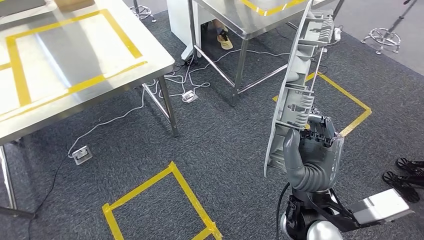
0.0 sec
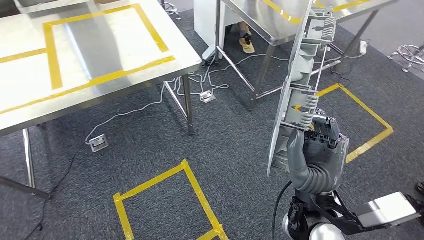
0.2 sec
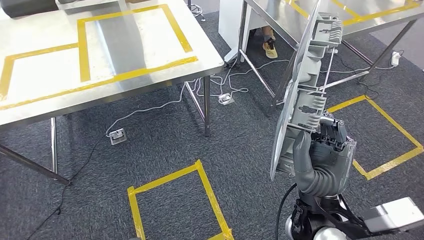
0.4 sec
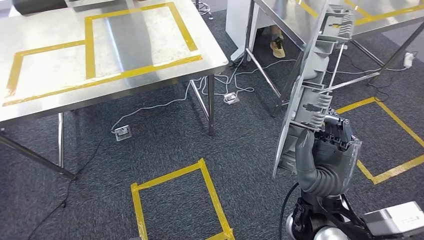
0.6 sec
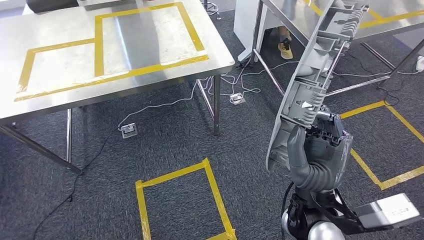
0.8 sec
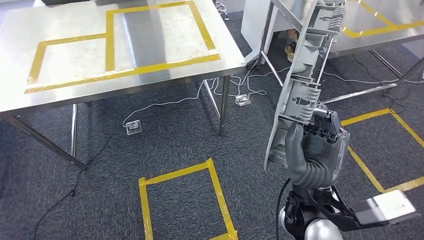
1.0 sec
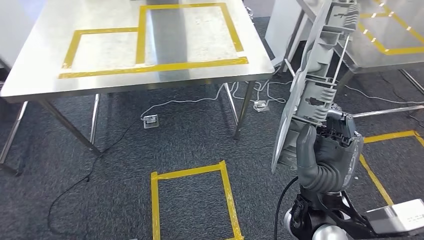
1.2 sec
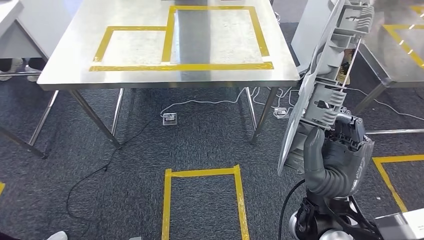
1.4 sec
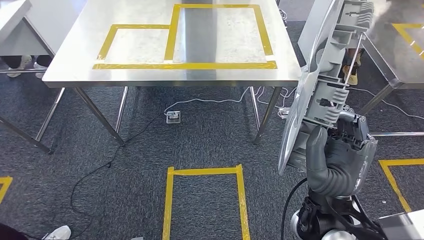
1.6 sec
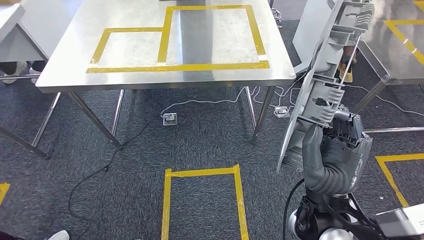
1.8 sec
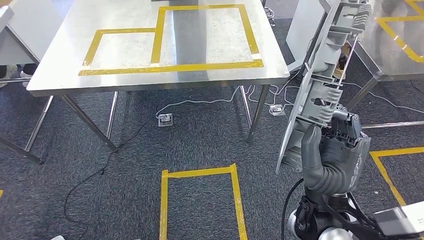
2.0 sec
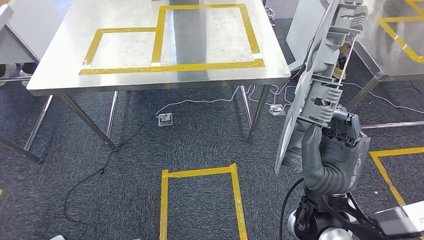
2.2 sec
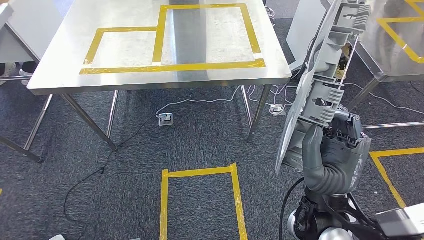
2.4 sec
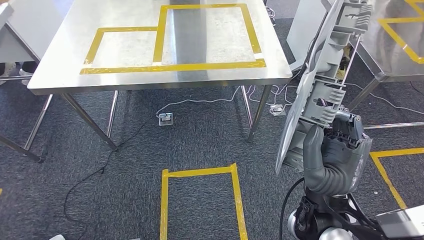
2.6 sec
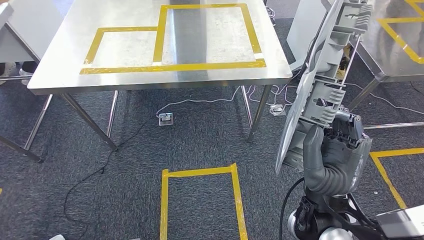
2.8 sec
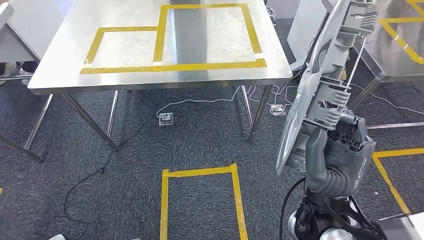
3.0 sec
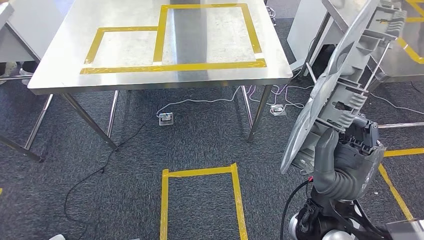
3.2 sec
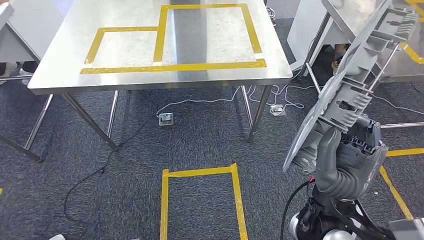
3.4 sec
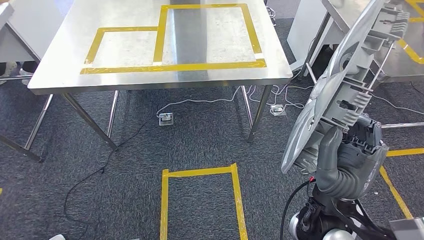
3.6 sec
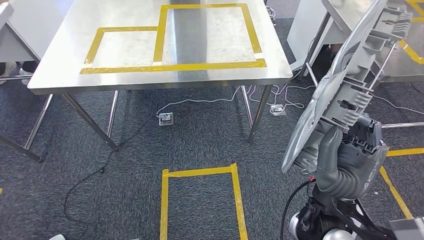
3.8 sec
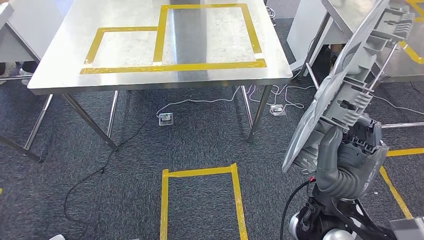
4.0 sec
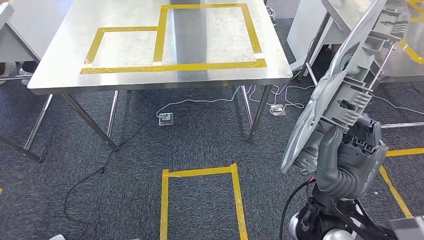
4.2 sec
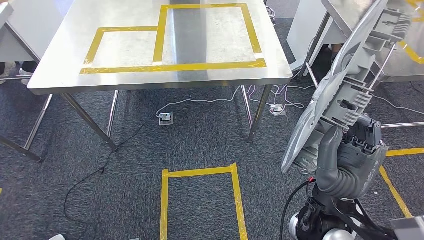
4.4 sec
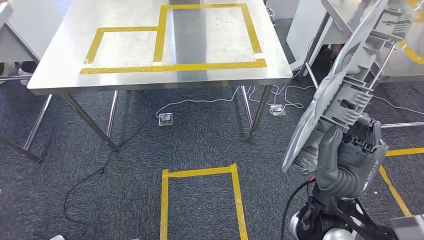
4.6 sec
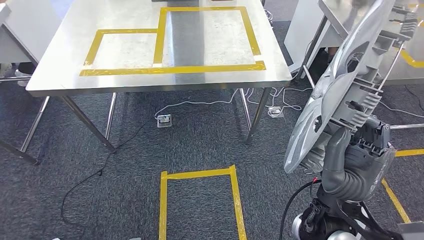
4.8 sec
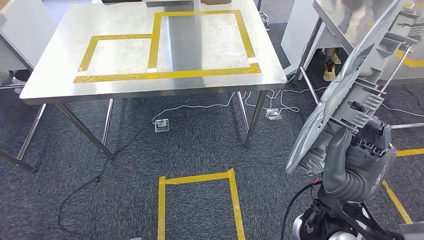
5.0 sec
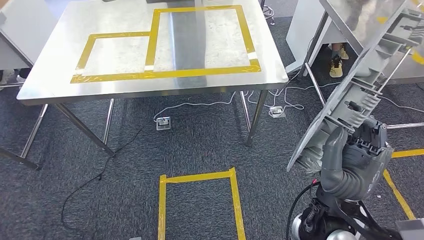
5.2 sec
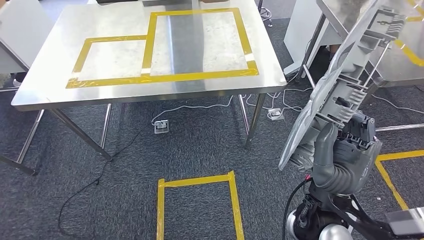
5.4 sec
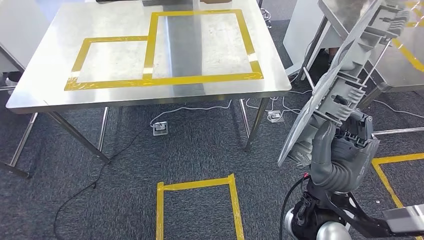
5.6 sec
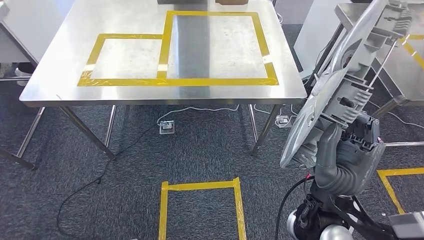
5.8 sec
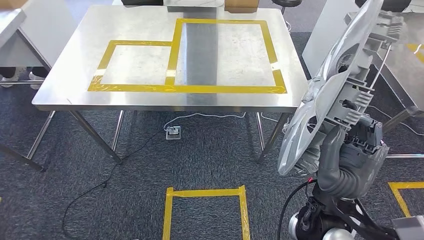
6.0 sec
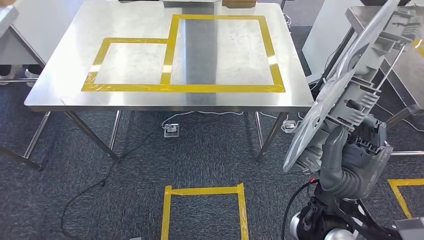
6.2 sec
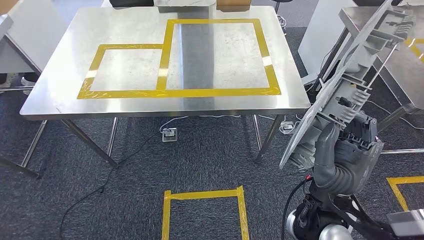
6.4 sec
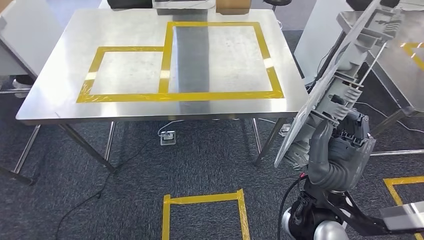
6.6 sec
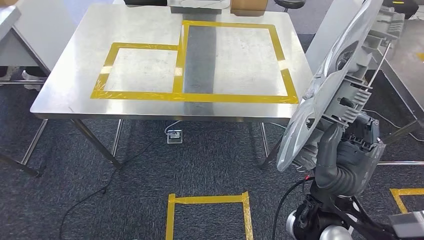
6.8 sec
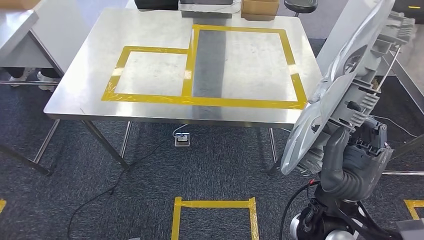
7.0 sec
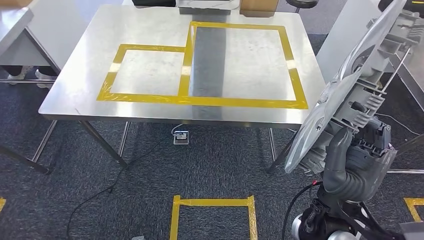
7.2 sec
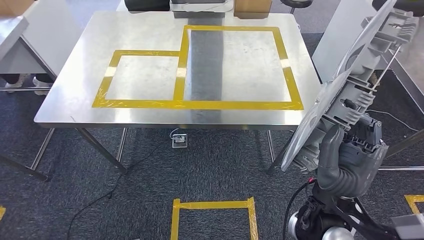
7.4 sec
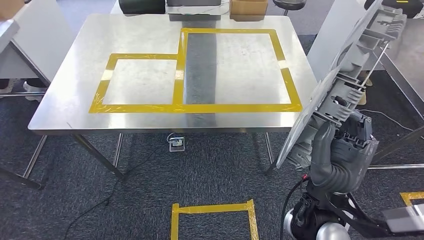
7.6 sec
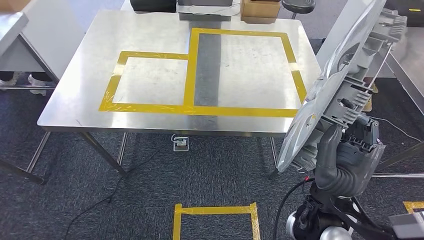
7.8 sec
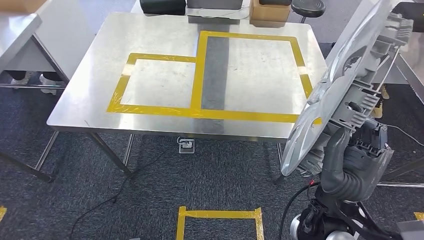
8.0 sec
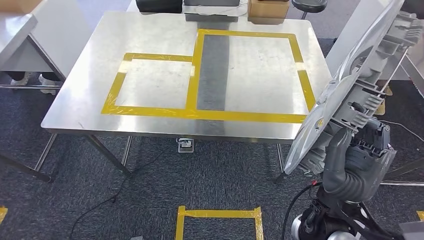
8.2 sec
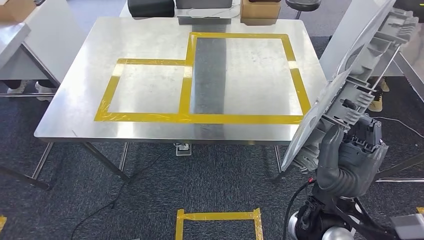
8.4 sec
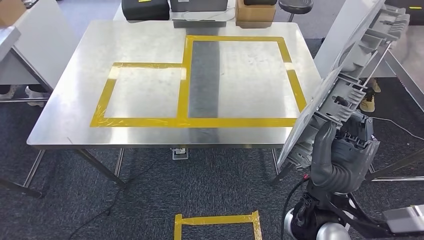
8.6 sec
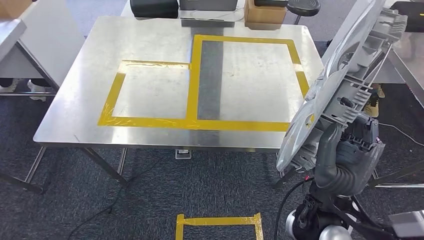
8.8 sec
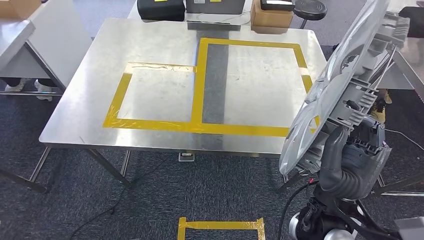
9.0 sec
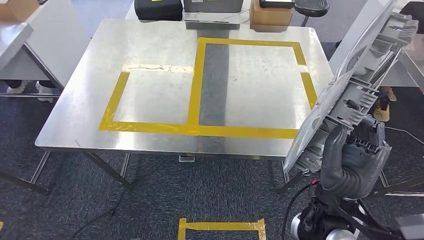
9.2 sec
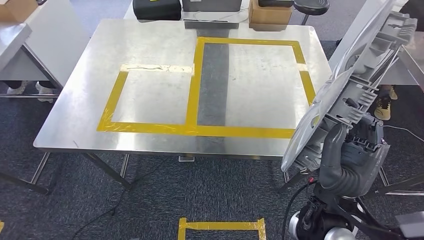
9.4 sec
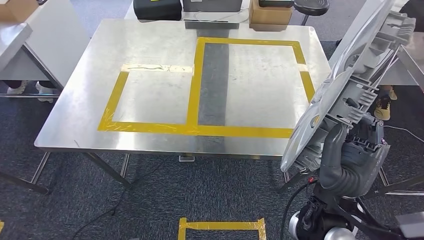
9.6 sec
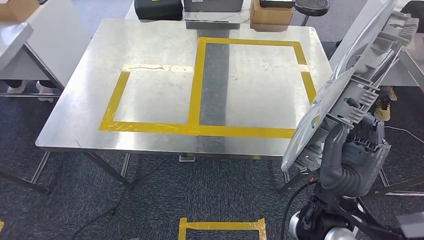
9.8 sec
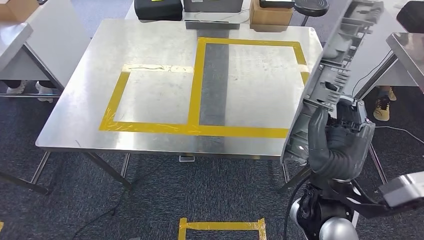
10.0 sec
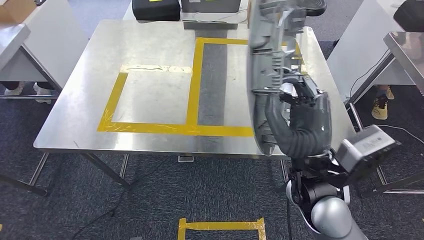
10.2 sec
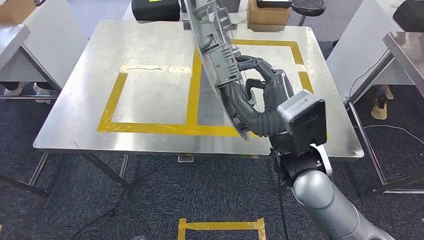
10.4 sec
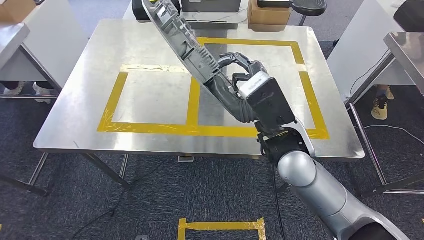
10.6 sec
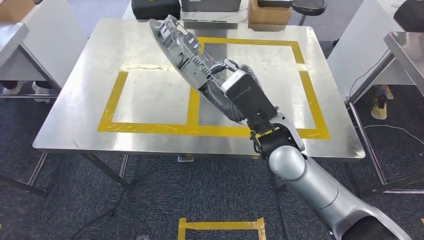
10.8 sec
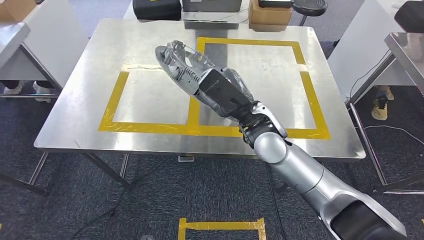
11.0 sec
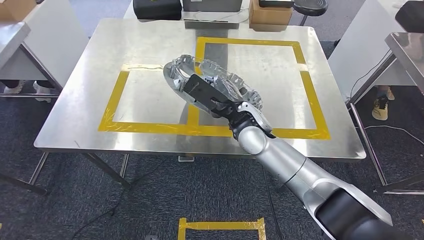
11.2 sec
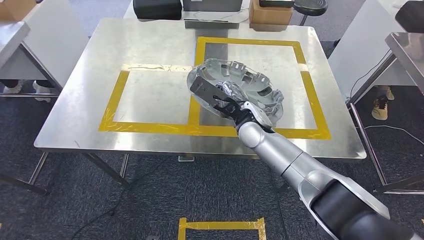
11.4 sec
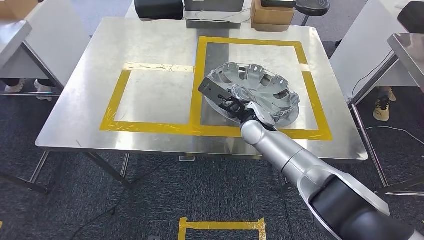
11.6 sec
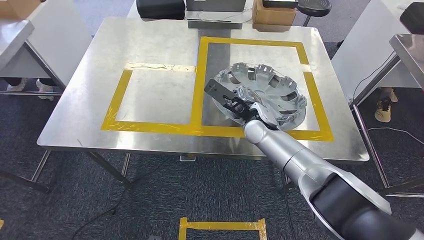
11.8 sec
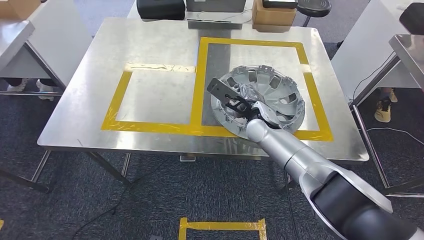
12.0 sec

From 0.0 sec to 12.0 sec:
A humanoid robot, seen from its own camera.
Step, from 0.0 sec to 3.6 sec: Move the small parts to the workbench.
From 3.0 sec to 4.4 sec: The hands stay close to where they were, moving slightly.

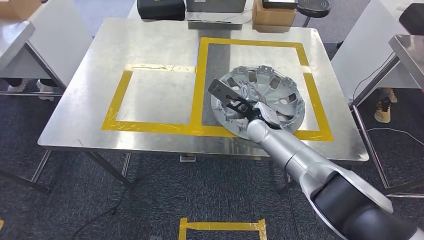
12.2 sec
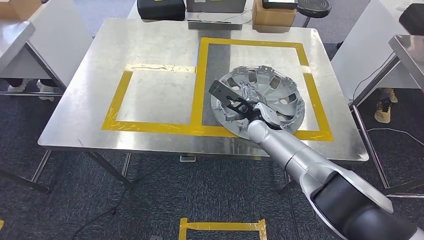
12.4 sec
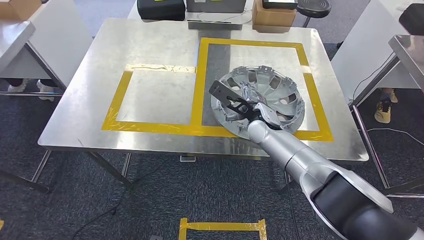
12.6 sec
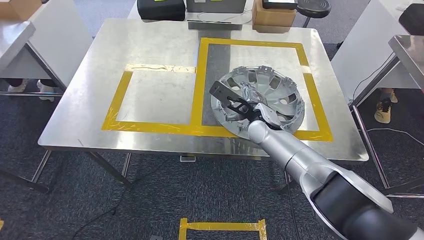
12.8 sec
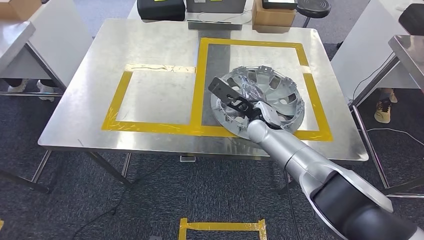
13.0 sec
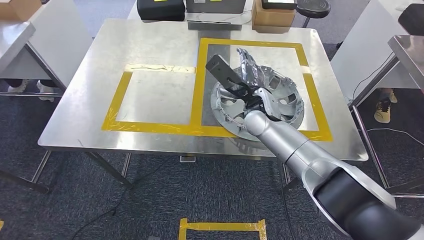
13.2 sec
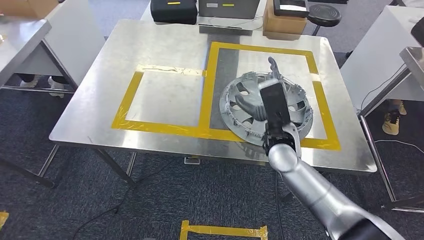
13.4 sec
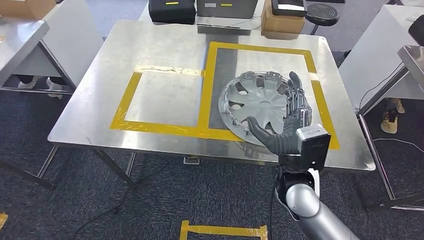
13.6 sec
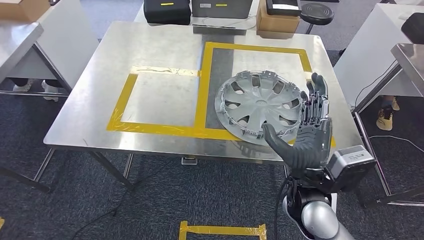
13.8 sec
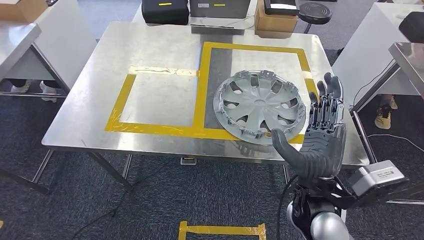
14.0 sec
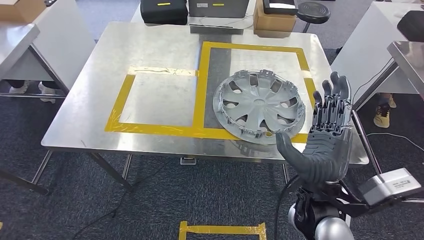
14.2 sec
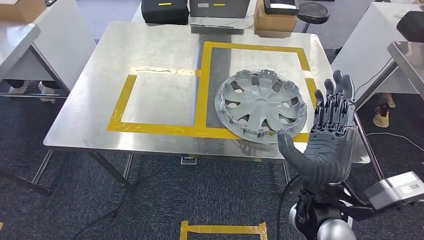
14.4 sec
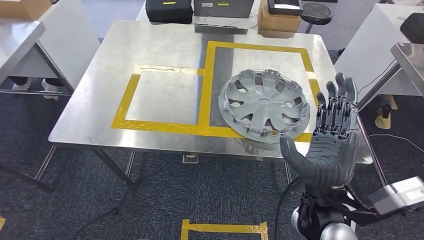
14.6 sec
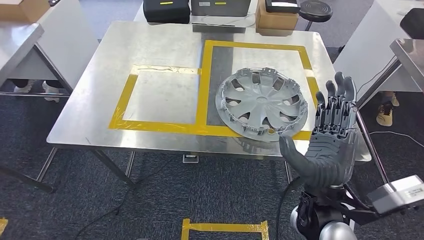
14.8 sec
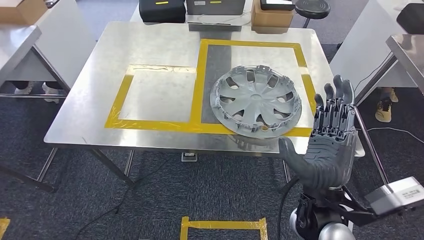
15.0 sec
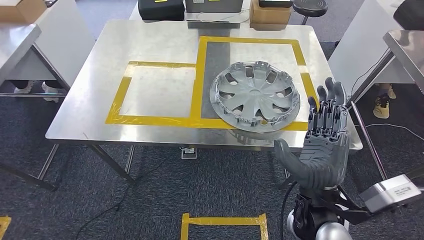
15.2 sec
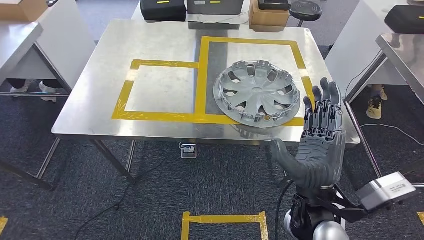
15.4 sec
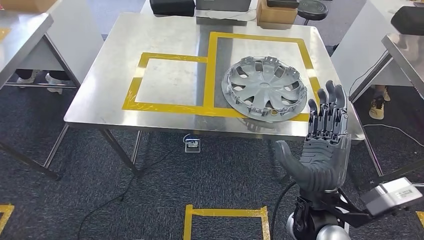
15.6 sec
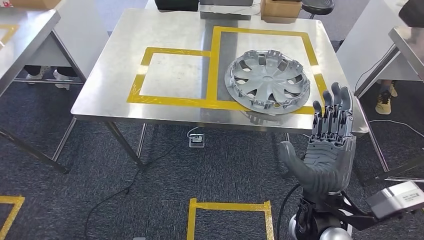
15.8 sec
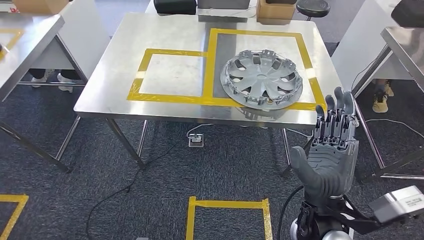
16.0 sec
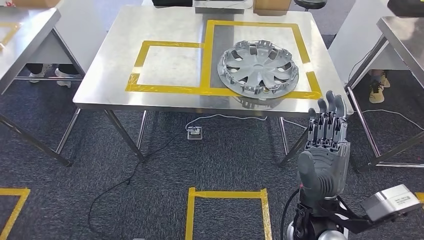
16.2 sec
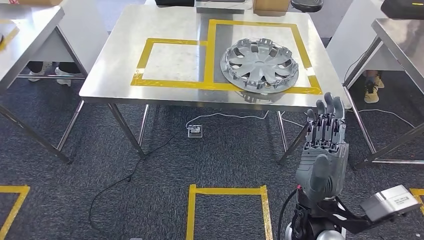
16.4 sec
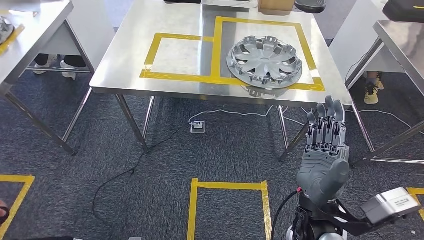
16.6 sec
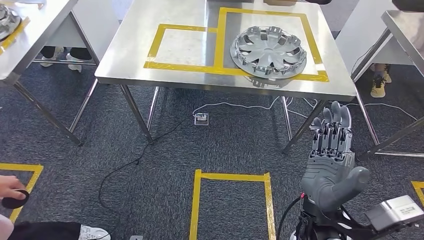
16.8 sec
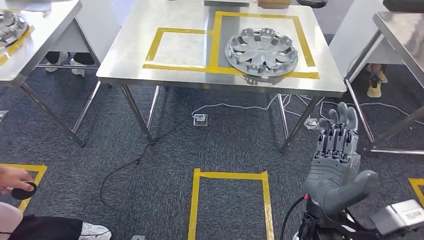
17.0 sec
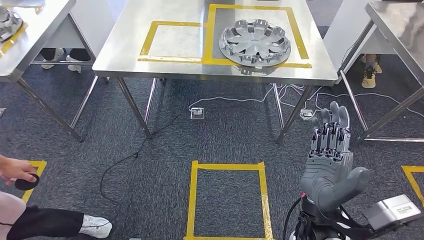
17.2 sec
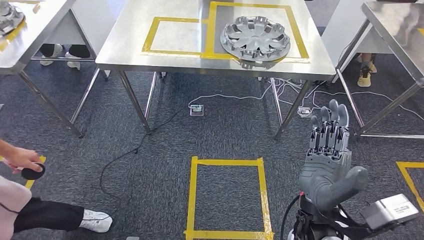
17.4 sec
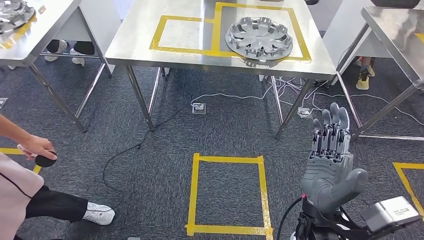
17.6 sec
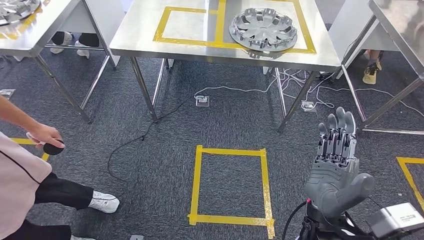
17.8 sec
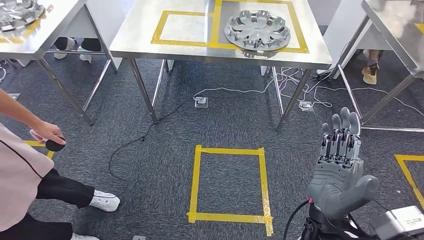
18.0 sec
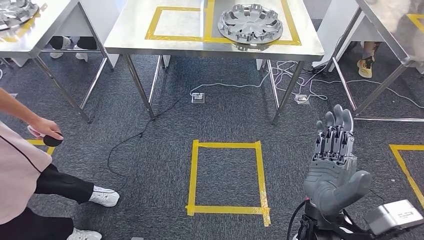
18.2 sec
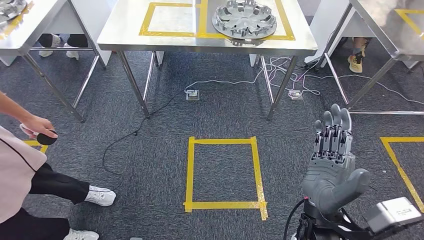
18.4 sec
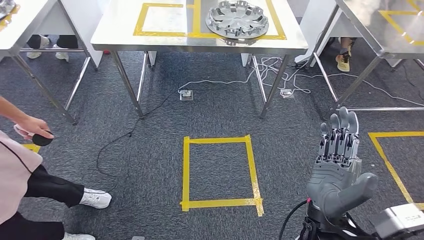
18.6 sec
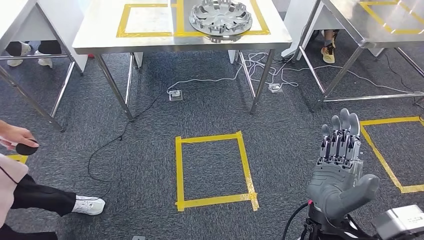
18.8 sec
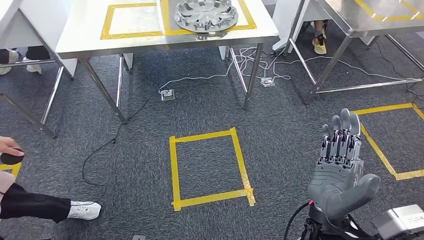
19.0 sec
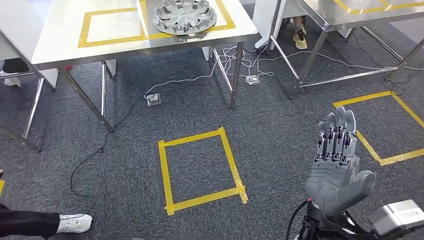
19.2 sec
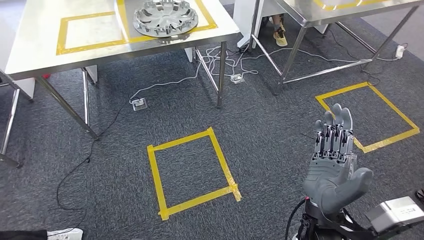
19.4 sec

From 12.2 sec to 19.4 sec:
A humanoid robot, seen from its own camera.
Step, from 12.2 sec to 15.2 sec: Insert the small parts into the corresponding holes on the workbench.
